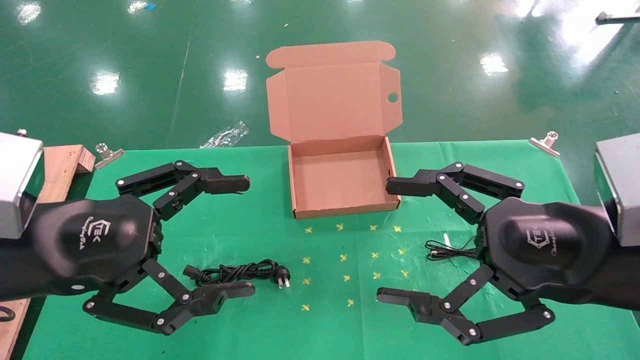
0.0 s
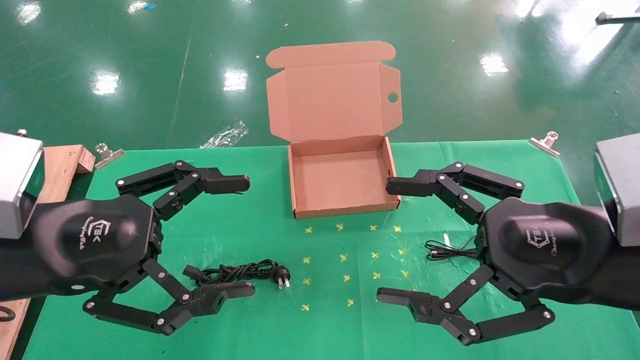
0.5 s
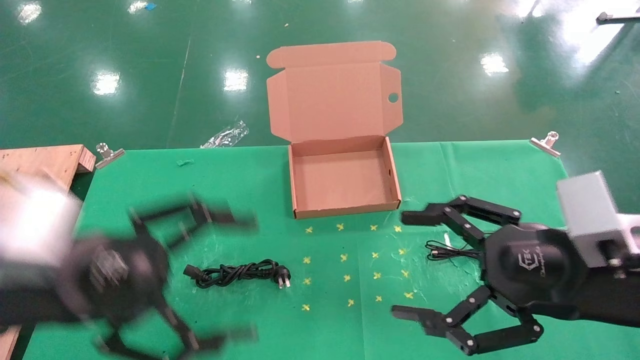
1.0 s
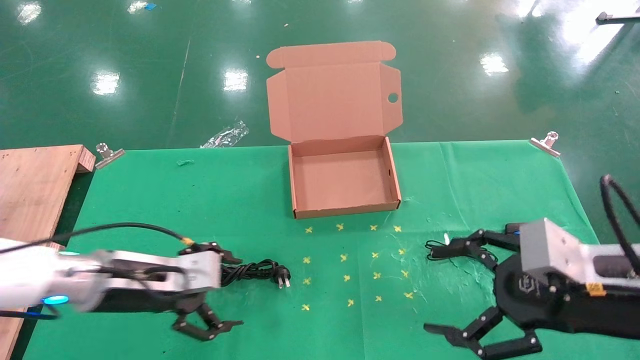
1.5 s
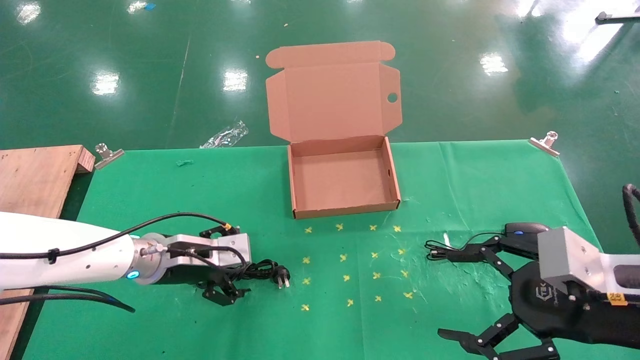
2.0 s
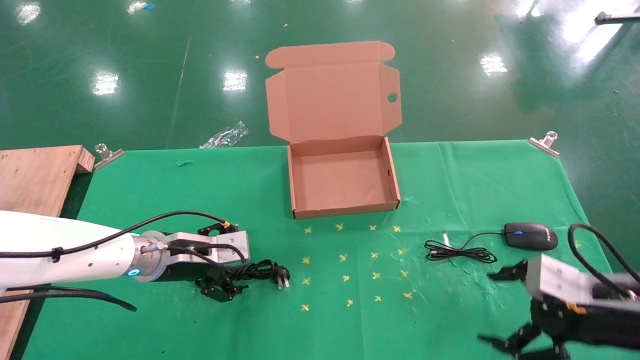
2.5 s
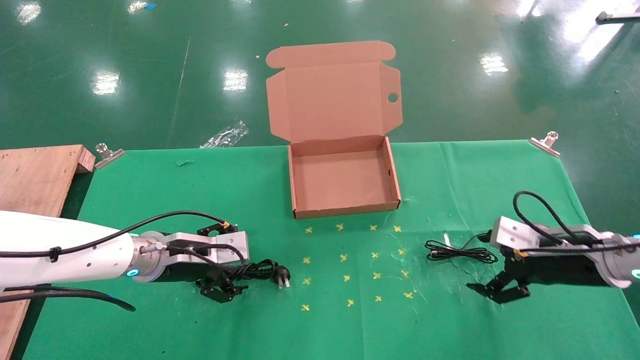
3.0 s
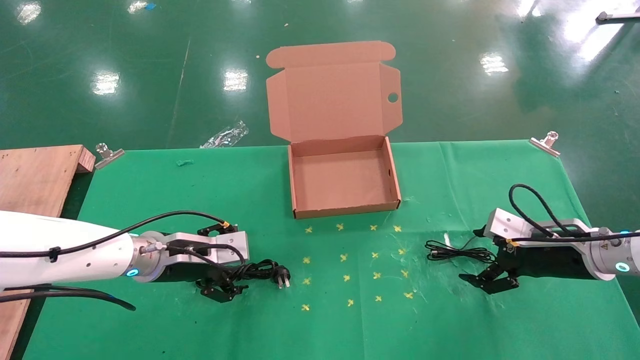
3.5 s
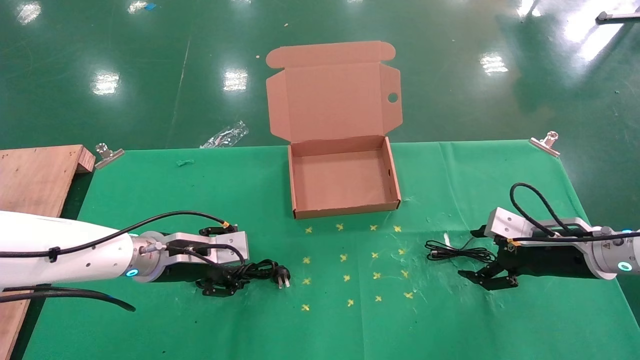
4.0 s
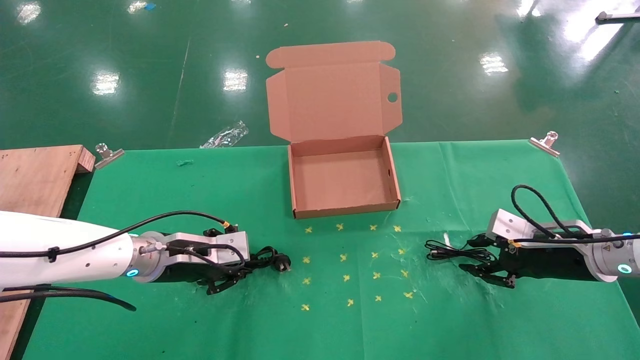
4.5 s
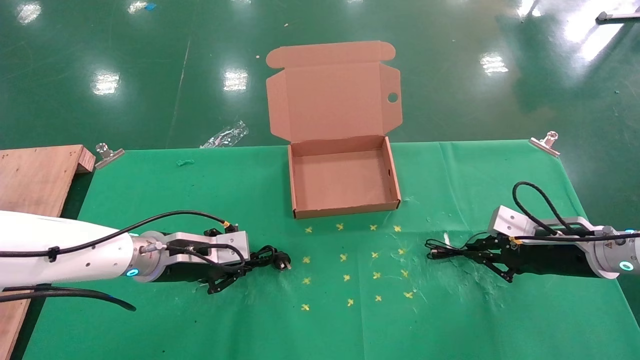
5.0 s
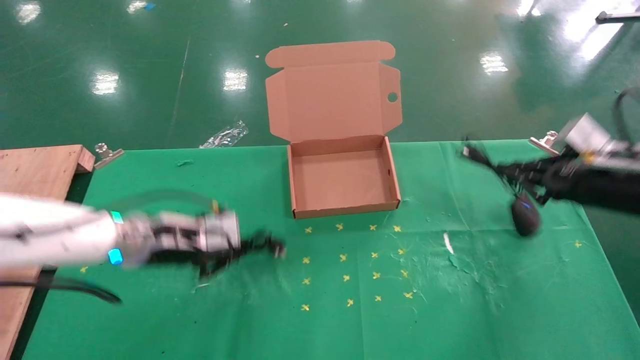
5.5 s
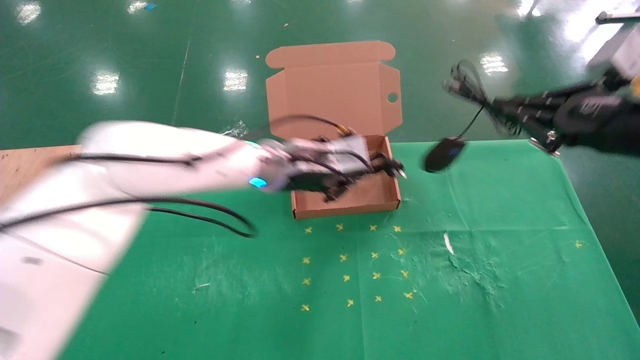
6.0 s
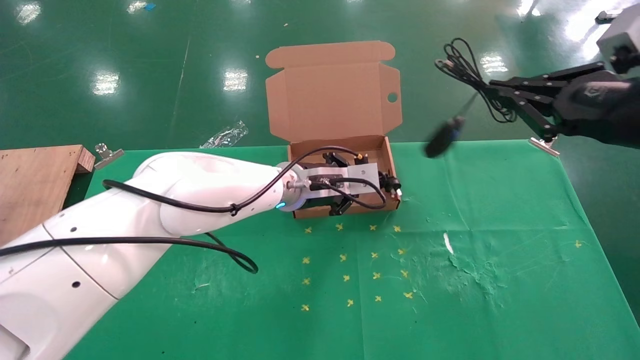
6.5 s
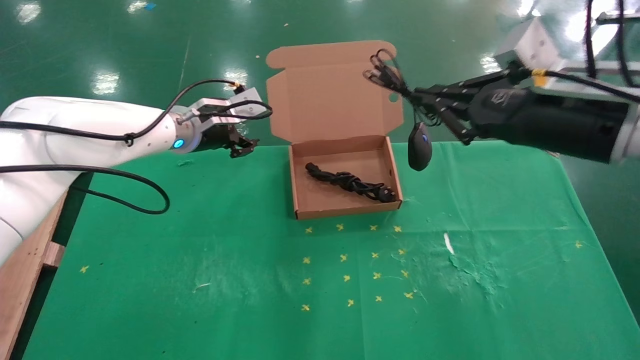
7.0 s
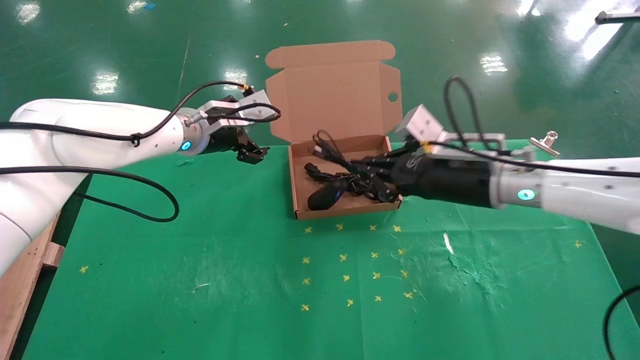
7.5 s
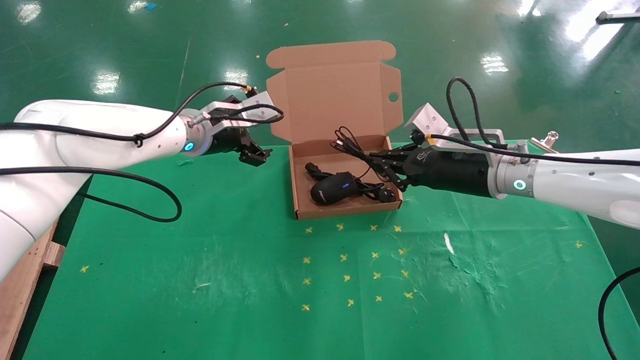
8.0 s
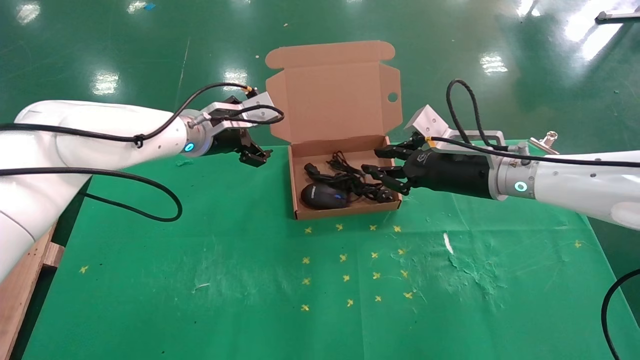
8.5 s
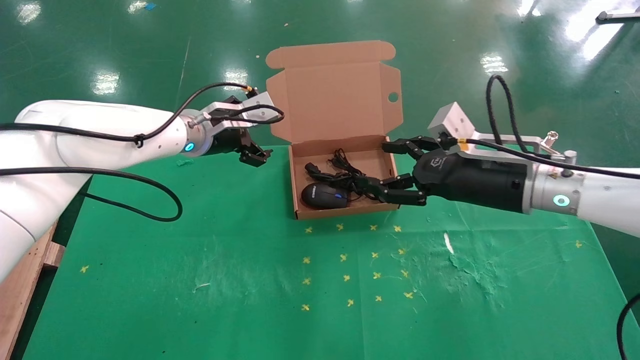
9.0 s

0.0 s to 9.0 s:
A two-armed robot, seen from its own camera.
Task of the whole recording: grasp data cable left put into box grasp mouse right put into box.
Step, 1.5 to 4.5 s: Simultaneously pick up the mouse and power cord from the accessory packaging area.
Step, 5.0 to 8.5 s: Place the mouse and power cord into the box.
0.0 to 2.0 s: The right gripper moves downward and to the right, about 10 cm. The left gripper heads forward and downward, covering some 25 cm.
2.0 to 4.5 s: The left gripper closes. The right gripper is displaced forward by approximately 15 cm, and closes.
4.5 to 7.0 s: The right gripper shifts approximately 20 cm upward and to the left, and closes, while the left gripper shifts about 20 cm upward, forward and to the right.
7.0 to 9.0 s: The right gripper travels downward by about 10 cm, and opens up, while the left gripper opens up.

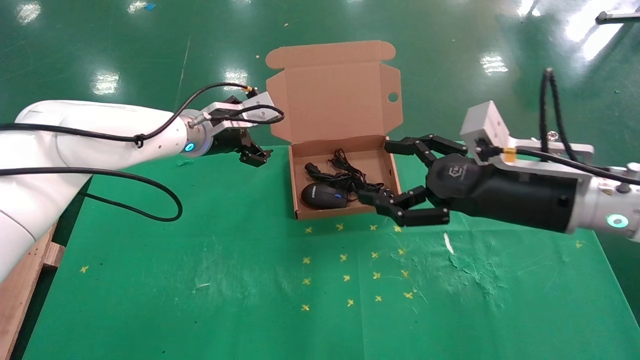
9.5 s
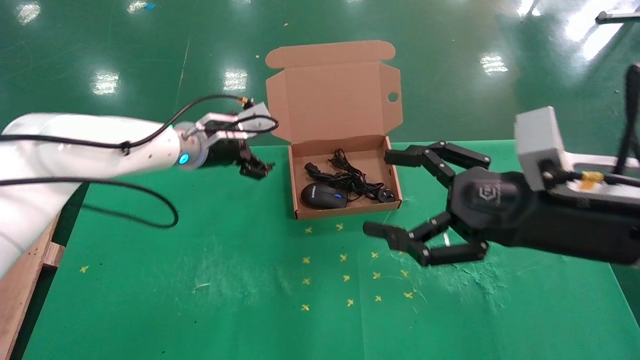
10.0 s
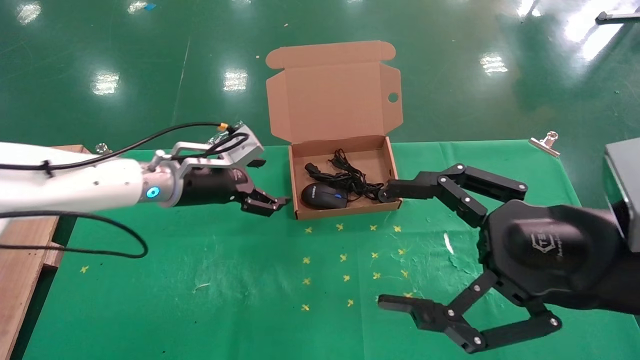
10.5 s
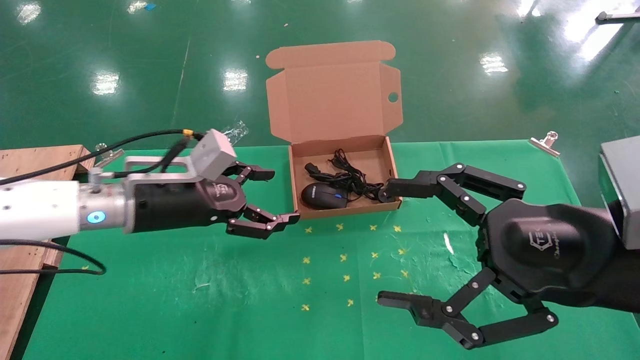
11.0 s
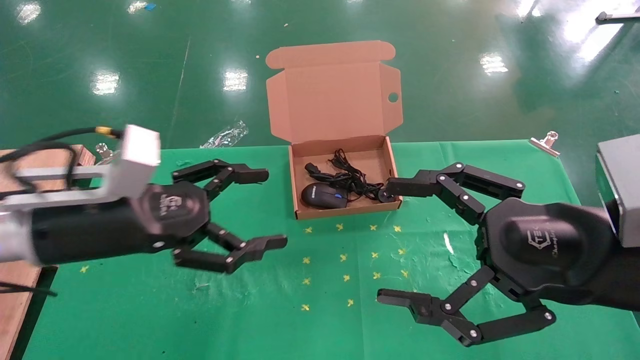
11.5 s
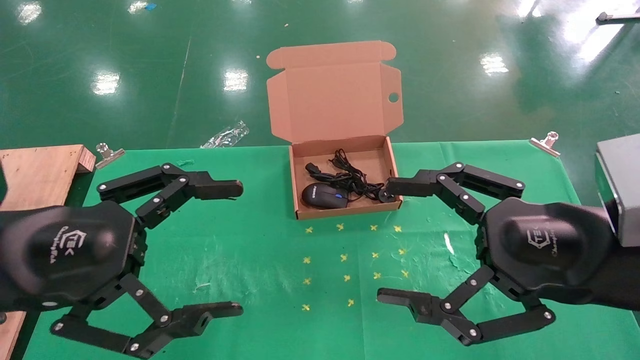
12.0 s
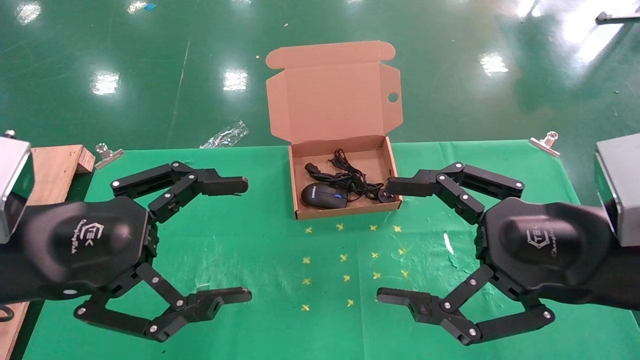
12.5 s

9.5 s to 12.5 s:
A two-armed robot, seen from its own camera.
Task of the whole recording: grasp data cable left put into box grasp mouse right put into box.
9.5 to 11.0 s: The grippers both shift backward by roughly 15 cm.
11.0 to 12.5 s: The left gripper is displaced backward by roughly 15 cm.
